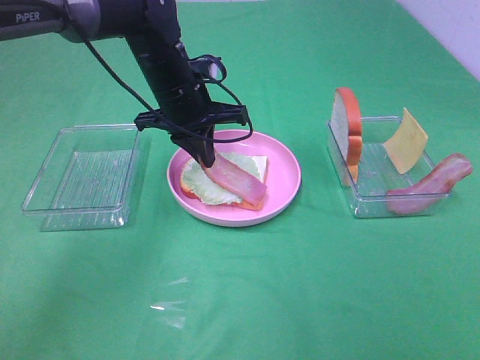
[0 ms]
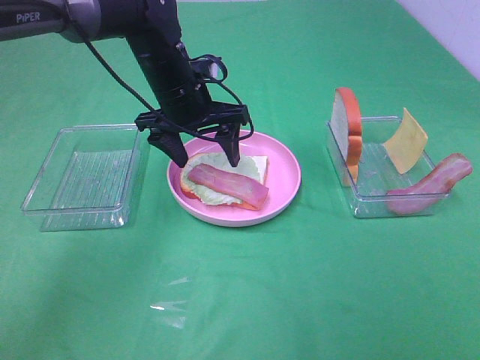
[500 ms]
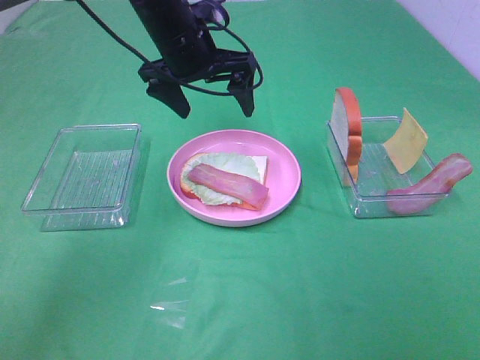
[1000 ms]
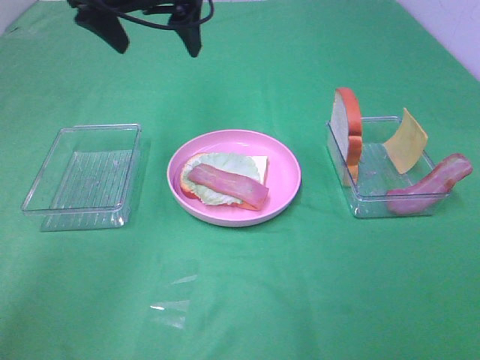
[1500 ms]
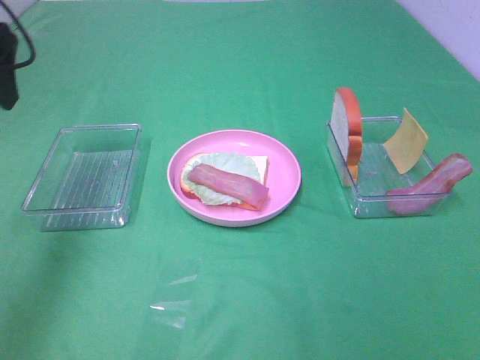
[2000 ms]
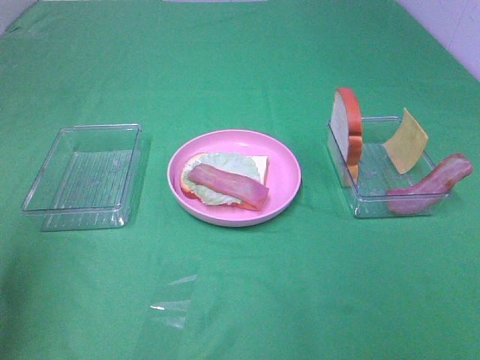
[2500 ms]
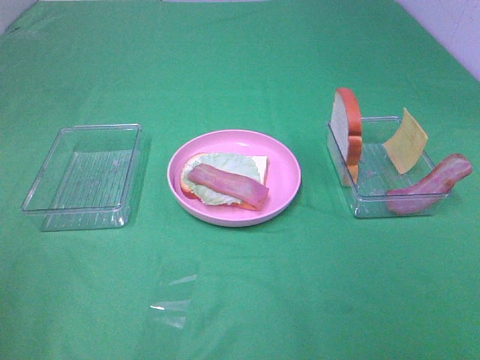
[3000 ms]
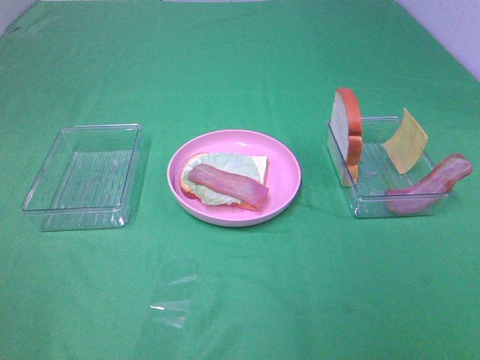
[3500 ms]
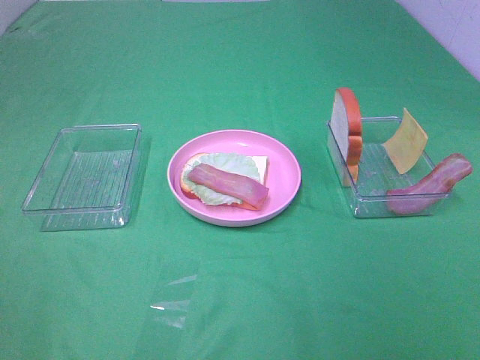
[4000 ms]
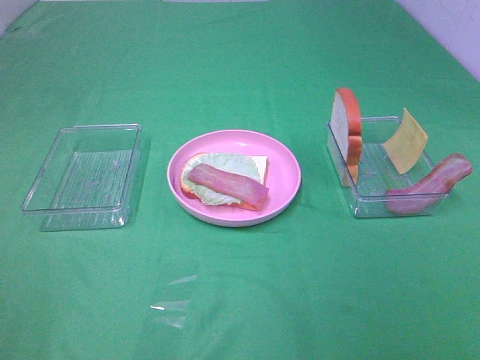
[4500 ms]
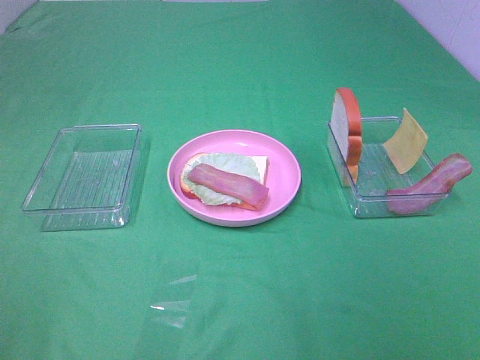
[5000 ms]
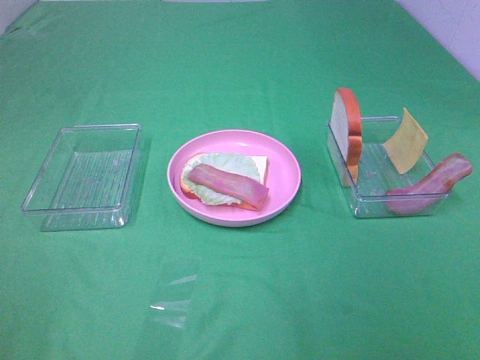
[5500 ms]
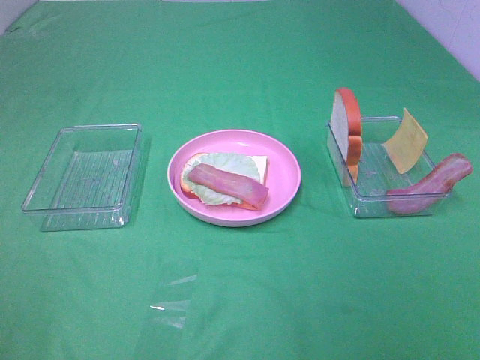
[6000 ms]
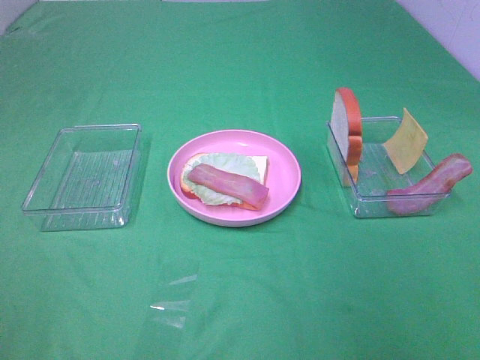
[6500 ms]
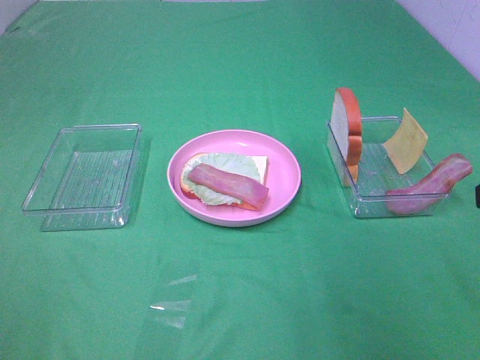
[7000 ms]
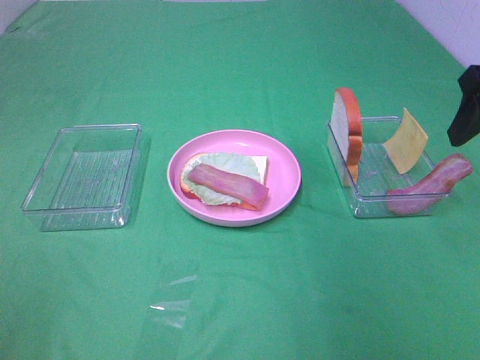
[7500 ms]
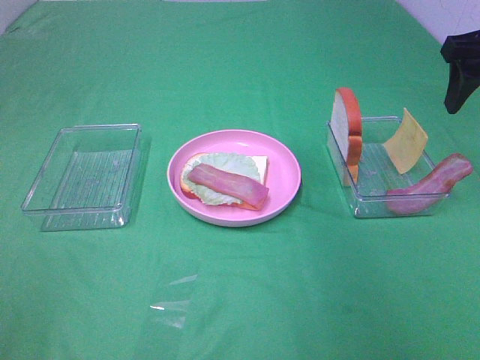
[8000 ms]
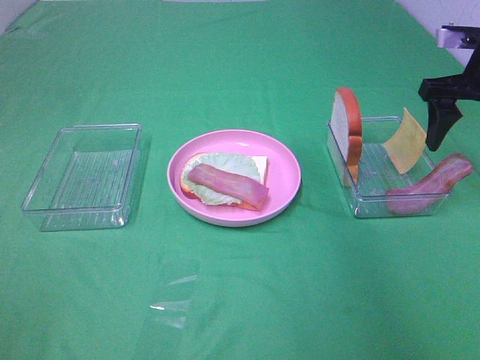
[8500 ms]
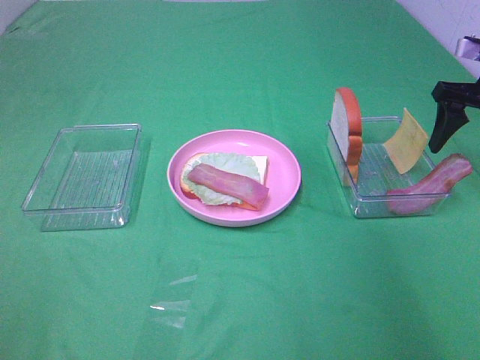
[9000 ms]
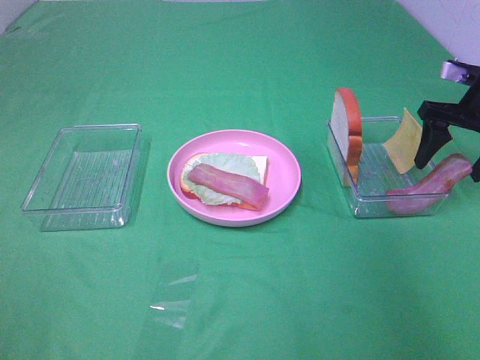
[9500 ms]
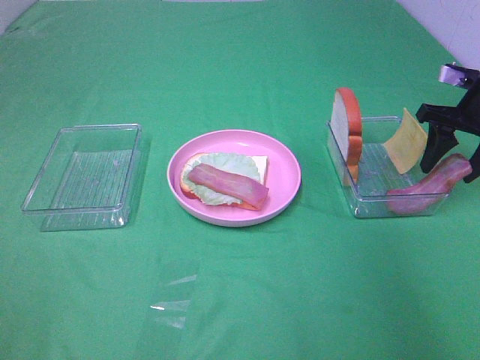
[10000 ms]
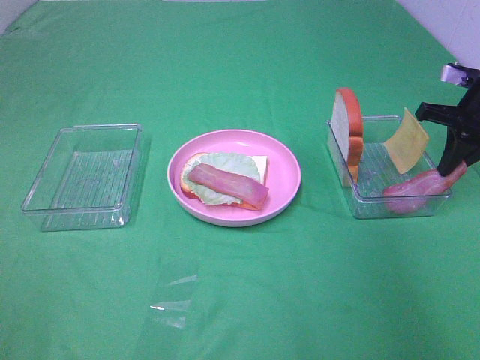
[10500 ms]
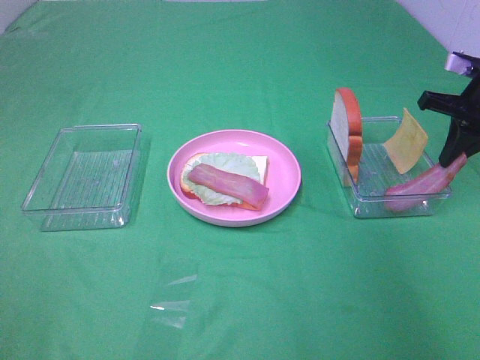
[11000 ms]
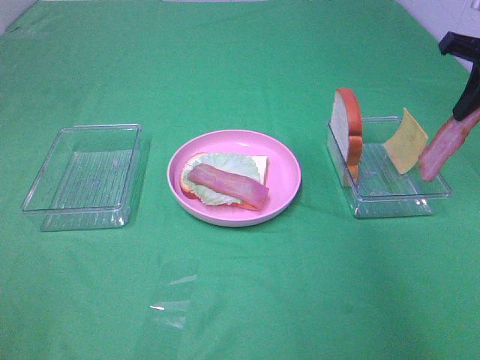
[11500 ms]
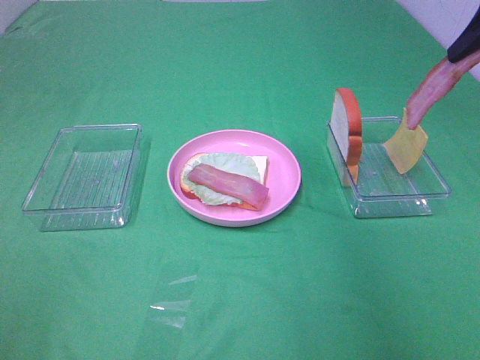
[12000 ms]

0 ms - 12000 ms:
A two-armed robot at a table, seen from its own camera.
Task of the whole recording: Make sandwiches.
Step, 1000 ms - 10500 ms: Right hand:grab the bacon.
0 ms - 2000 ms: The left gripper moves to the left, upward and backward, approximately 30 cm, and opens up.
2000 ms - 4000 ms: The left gripper shifts approximately 30 cm backward.
6000 ms - 8000 ms: The right gripper goes about 35 cm forward.
8000 ms - 10000 ms: The right gripper heads downward, covering approximately 10 cm.
10000 ms - 12000 ms: The right gripper is displaced upward by roughly 15 cm, and closes up.

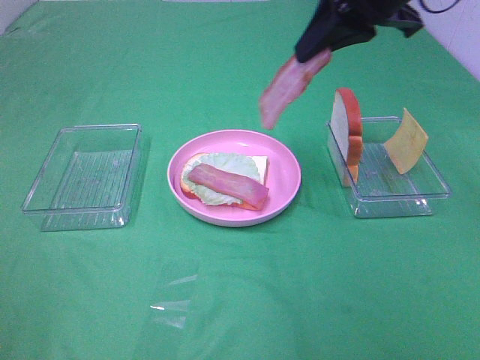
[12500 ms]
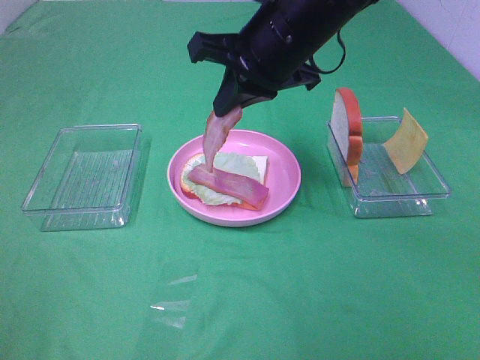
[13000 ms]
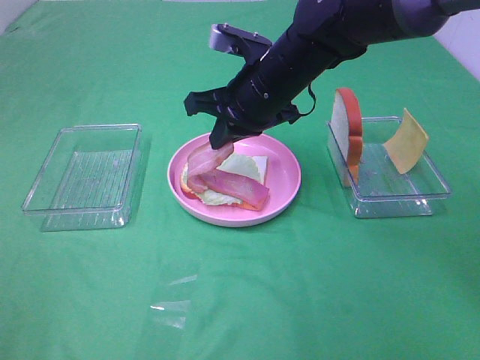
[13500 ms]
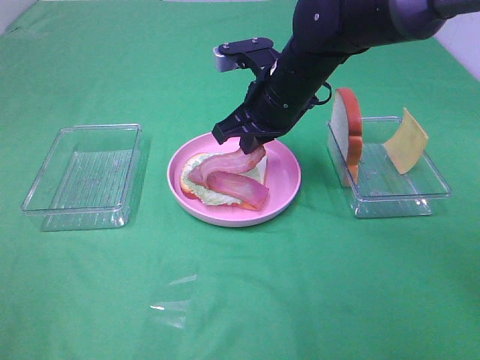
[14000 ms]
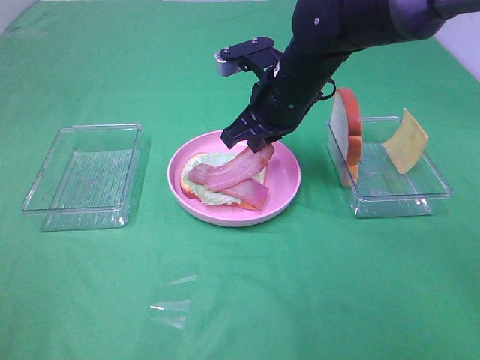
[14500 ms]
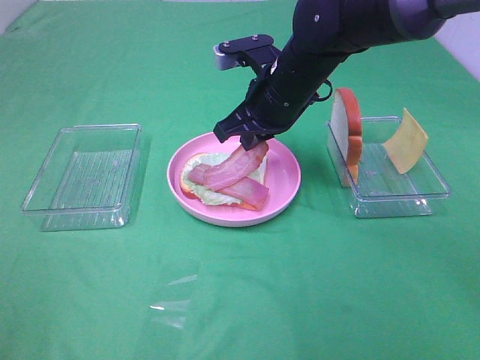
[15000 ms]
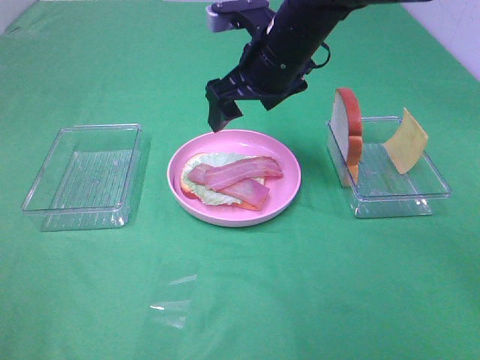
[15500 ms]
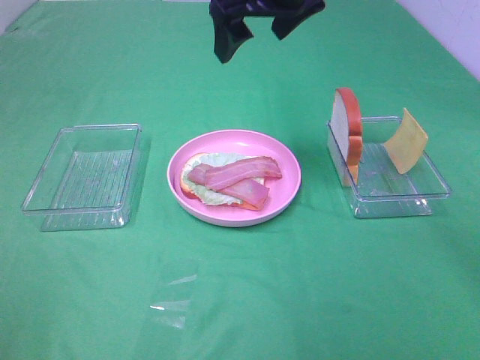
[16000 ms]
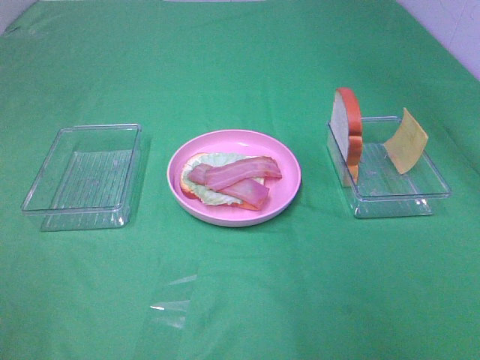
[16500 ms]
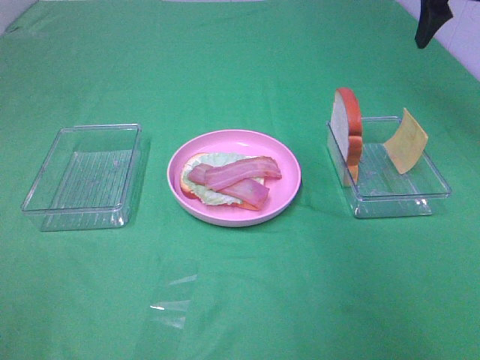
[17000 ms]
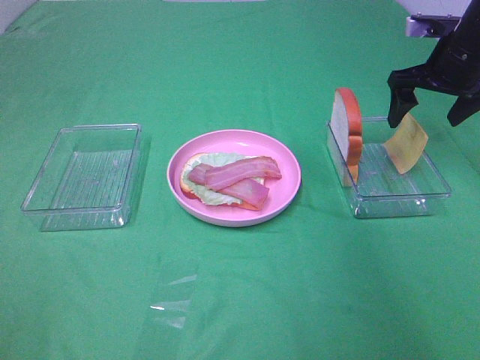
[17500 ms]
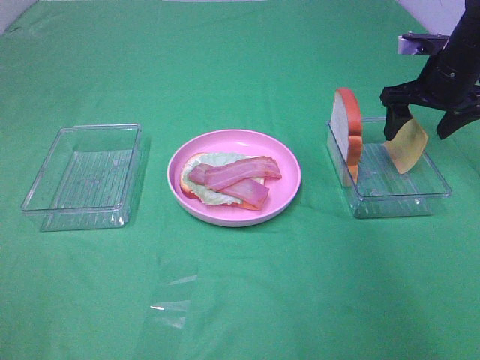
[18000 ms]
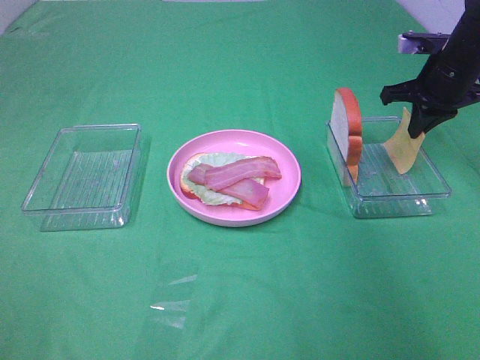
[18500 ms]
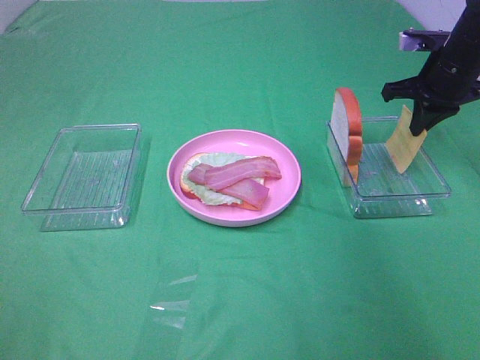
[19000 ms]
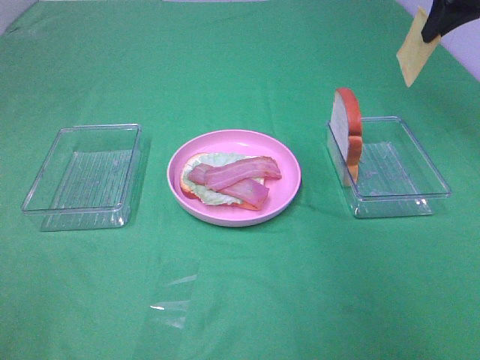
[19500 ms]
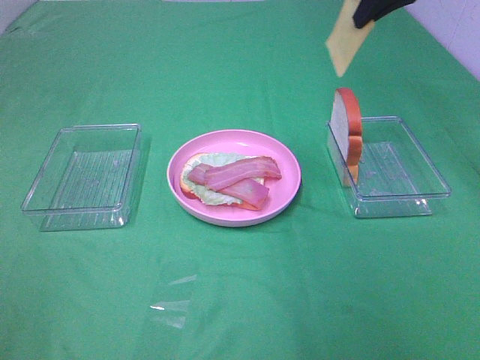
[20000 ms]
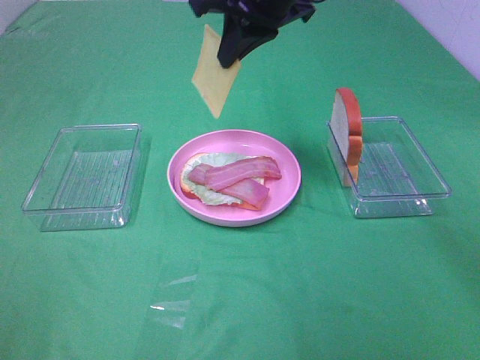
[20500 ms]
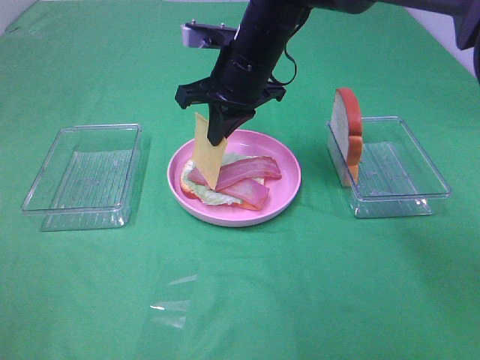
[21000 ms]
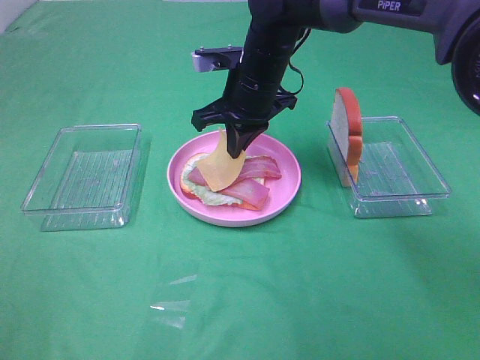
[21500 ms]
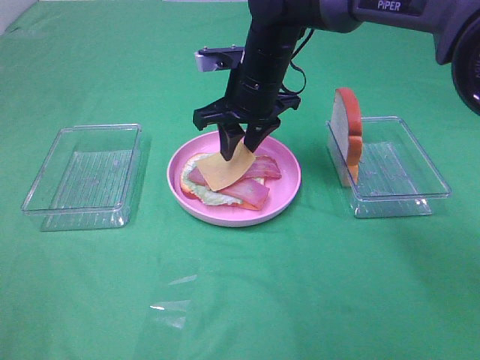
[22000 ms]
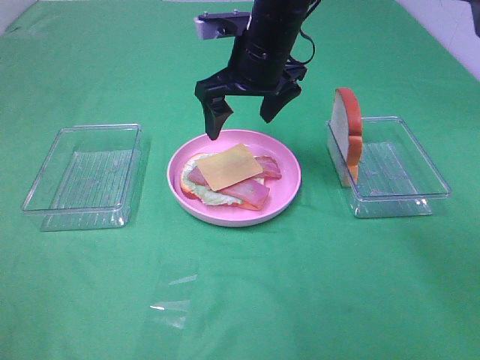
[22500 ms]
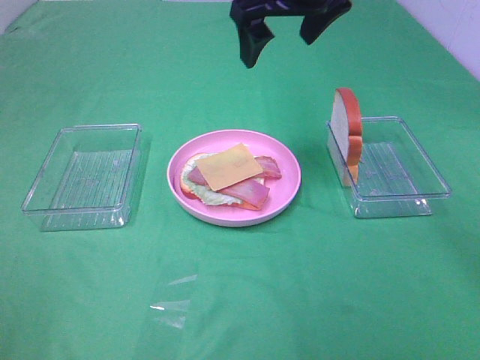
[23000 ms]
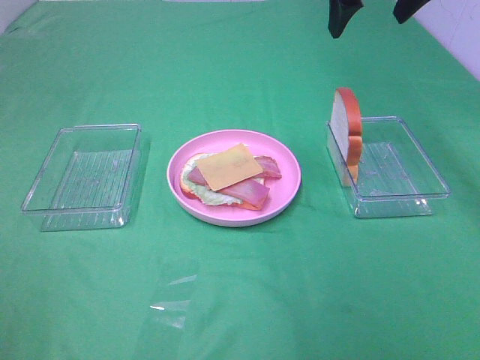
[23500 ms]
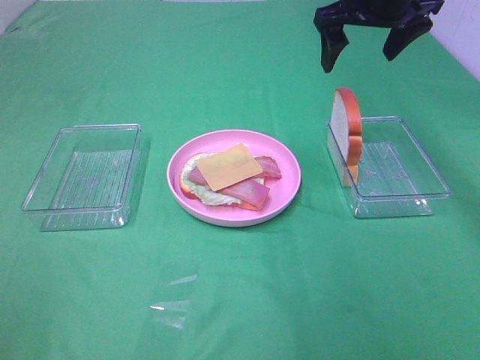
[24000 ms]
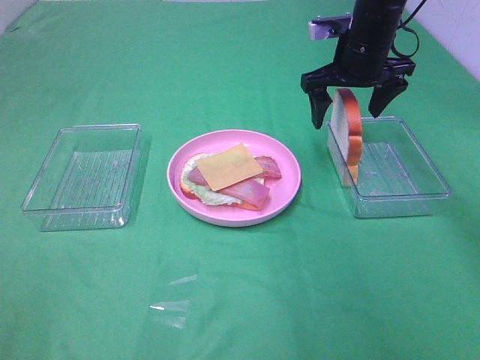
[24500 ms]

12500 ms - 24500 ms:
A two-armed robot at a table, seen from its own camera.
Task of the whole recording: Make sandwiches.
Step, 12500 ms - 15000 ms: Right hand:place bacon on lettuce slice.
Step, 15500 ms - 19000 ms: Right hand:grab the cheese slice.
Step, 19500 ms - 22000 ms: Right hand:place the cheese slice on top of the bacon.
12500 ms - 14500 ms: The right gripper goes approximately 15 cm downward.
14500 ms - 16500 ms: The right gripper is displaced upward and to the right by roughly 25 cm, and opens.
16500 ms - 18500 ms: The right gripper is displaced downward by approximately 20 cm, and closes up.
18500 ms - 20500 ms: The right gripper heads to the left and upward, covering approximately 30 cm.
20500 ms - 22500 ms: The right gripper is displaced downward by roughly 10 cm, and opens.
22500 ms - 24500 ms: The right gripper moves to the right and forward, approximately 15 cm.

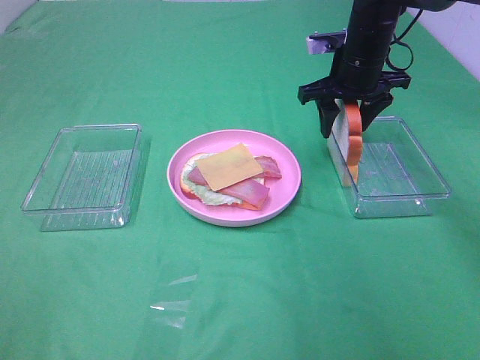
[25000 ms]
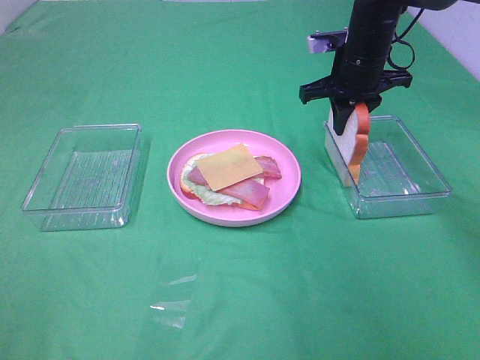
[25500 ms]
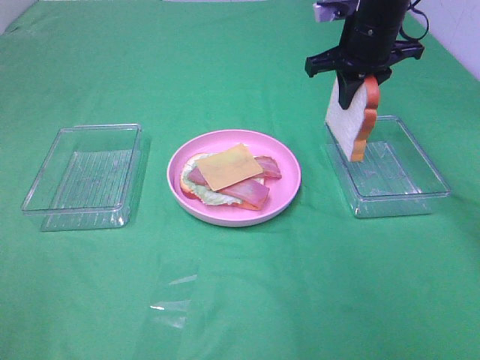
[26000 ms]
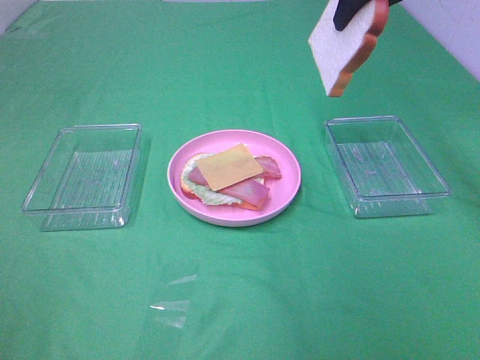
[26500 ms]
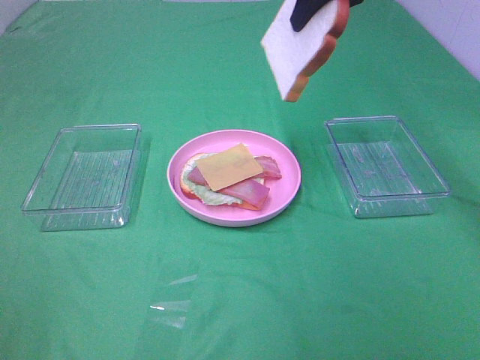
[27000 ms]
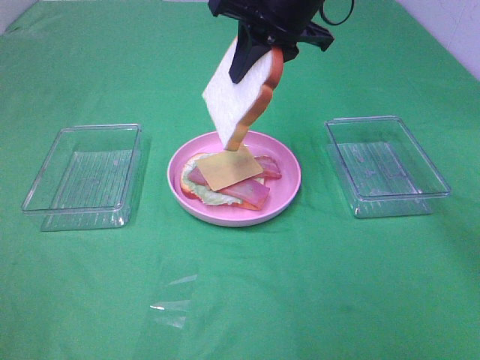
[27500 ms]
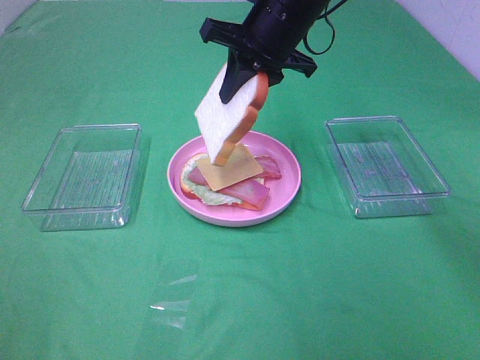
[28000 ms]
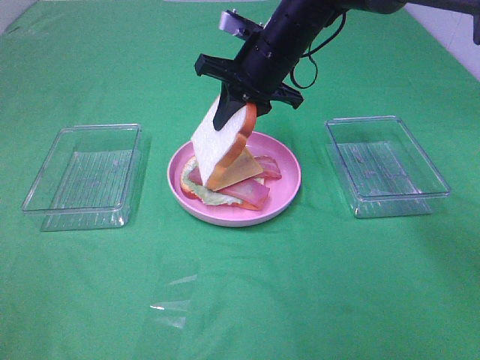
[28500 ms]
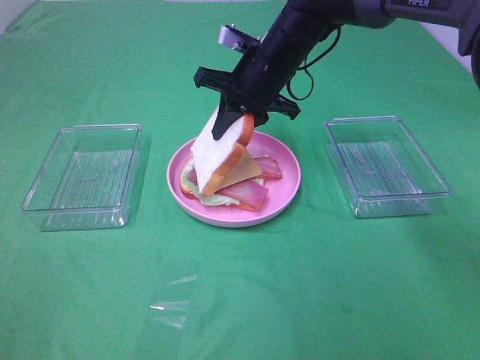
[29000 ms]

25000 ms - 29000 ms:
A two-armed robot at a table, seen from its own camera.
Task of the whole recording: Make sandwiches.
25000 ms - 27000 ms: The right gripper heads upward, covering approximately 15 cm, and closes its fingers.
27000 ms - 29000 ms: The right gripper heads downward and to the left, covering some 20 cm.
